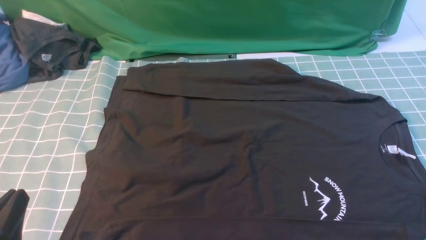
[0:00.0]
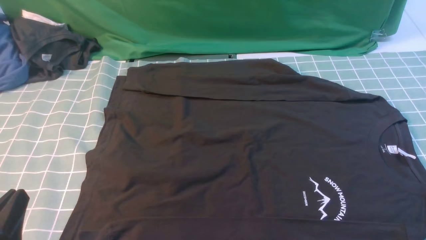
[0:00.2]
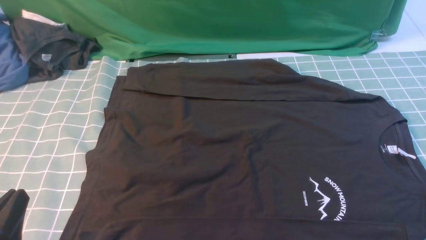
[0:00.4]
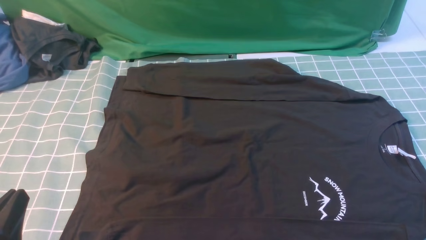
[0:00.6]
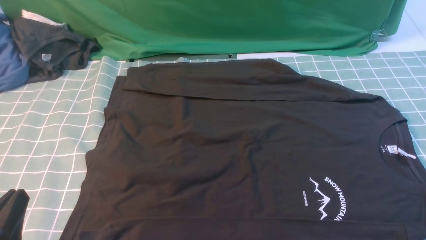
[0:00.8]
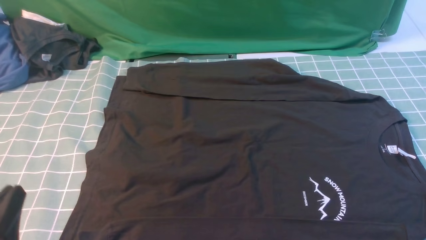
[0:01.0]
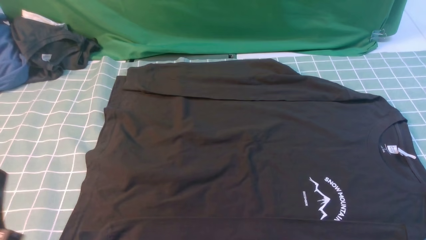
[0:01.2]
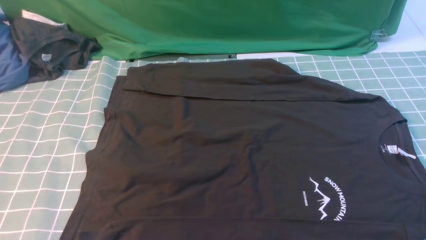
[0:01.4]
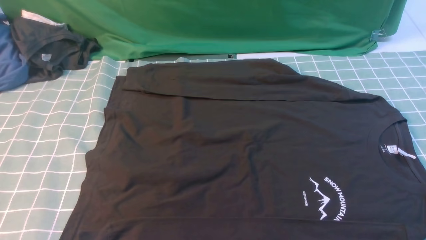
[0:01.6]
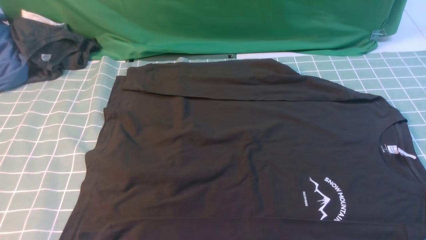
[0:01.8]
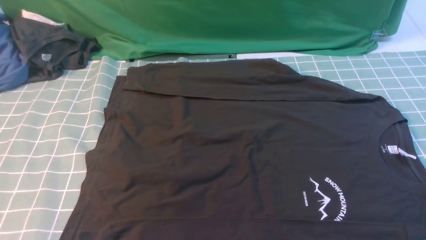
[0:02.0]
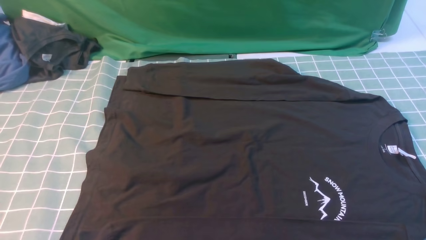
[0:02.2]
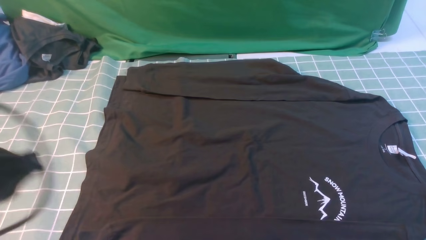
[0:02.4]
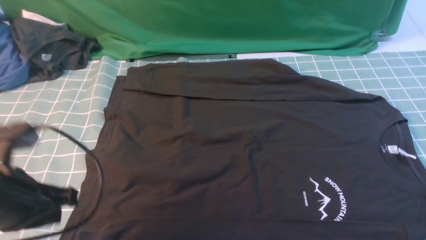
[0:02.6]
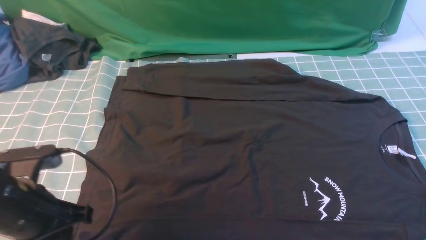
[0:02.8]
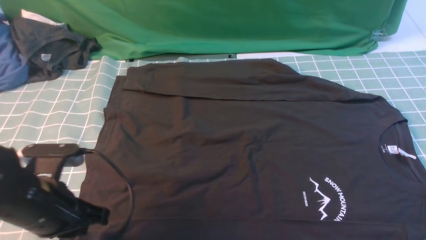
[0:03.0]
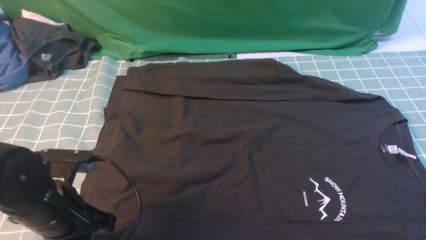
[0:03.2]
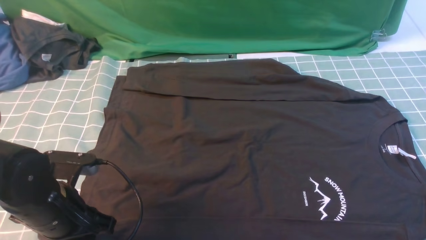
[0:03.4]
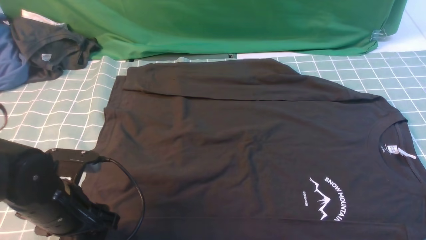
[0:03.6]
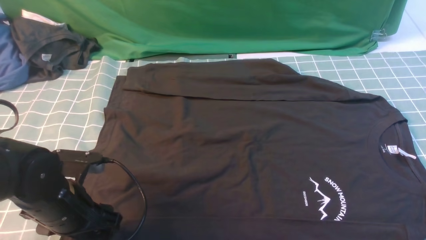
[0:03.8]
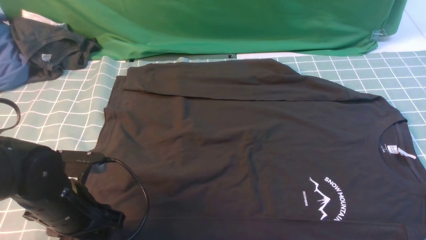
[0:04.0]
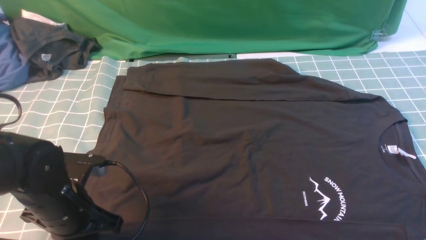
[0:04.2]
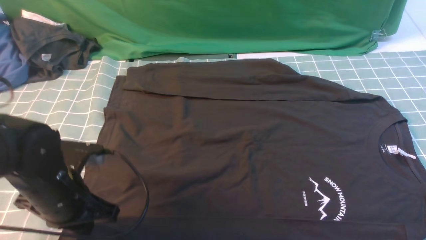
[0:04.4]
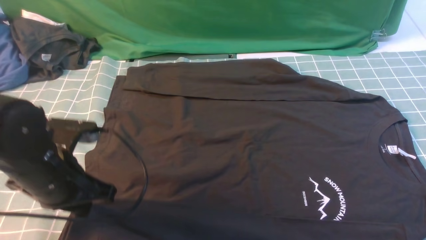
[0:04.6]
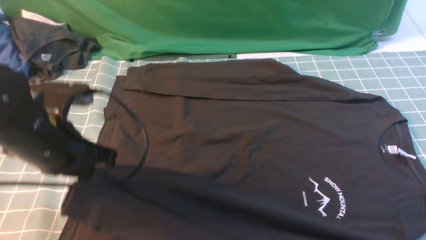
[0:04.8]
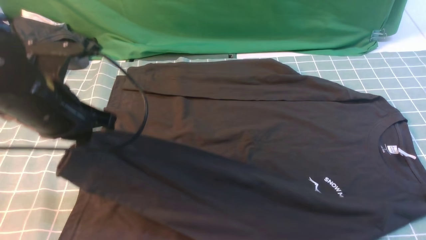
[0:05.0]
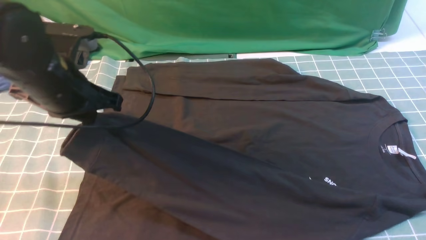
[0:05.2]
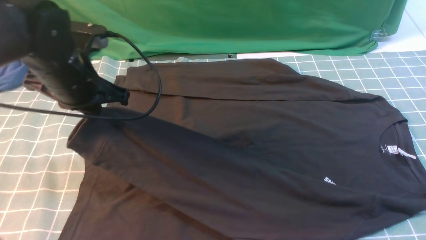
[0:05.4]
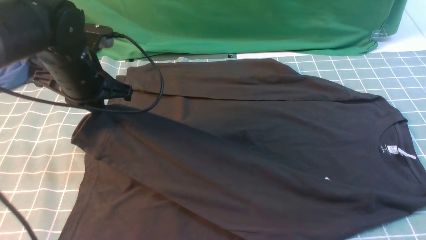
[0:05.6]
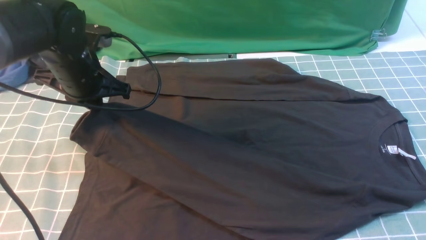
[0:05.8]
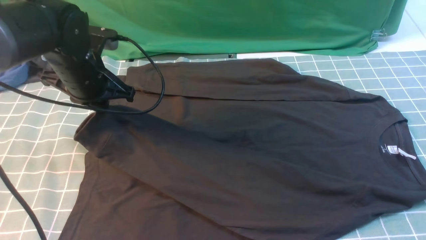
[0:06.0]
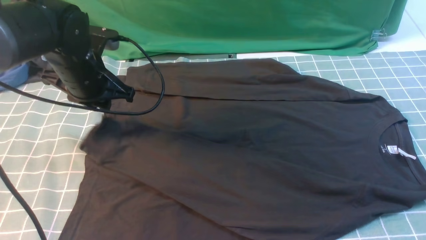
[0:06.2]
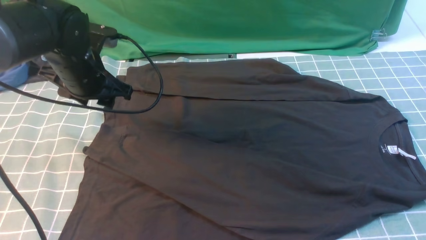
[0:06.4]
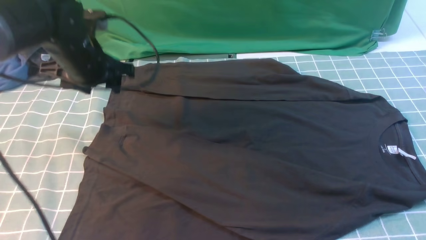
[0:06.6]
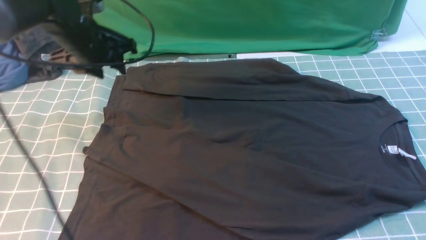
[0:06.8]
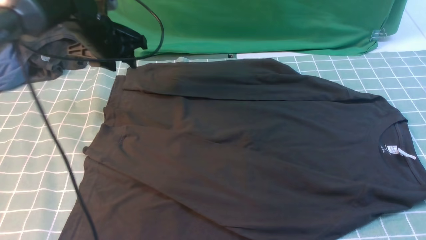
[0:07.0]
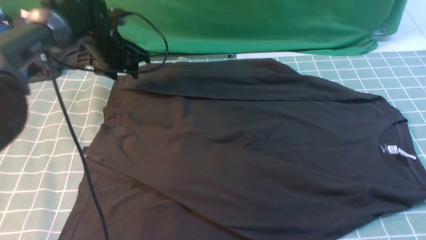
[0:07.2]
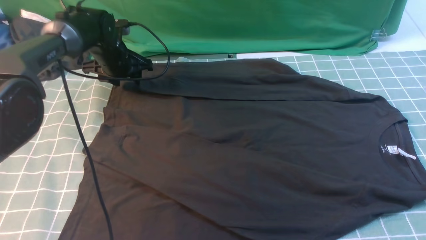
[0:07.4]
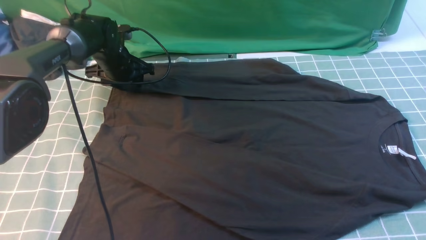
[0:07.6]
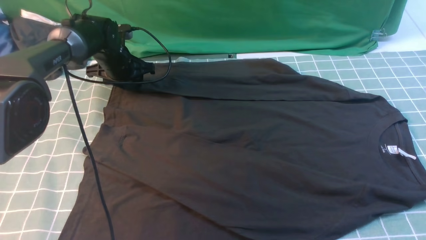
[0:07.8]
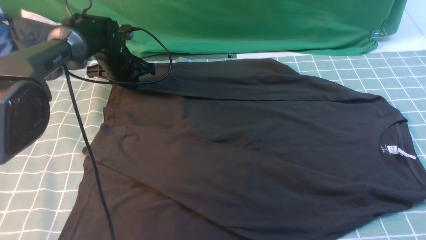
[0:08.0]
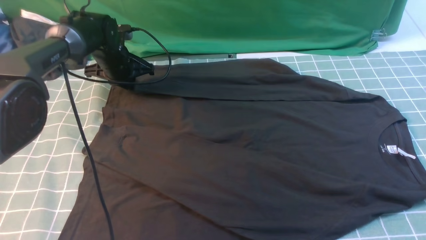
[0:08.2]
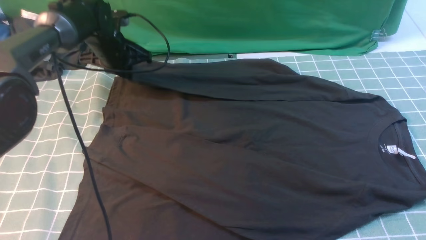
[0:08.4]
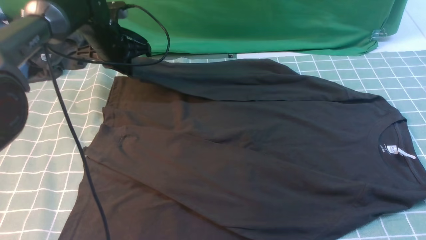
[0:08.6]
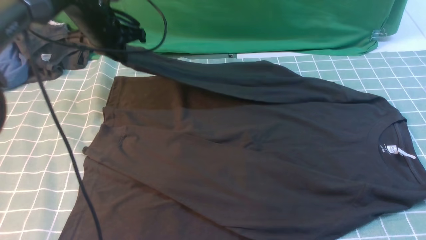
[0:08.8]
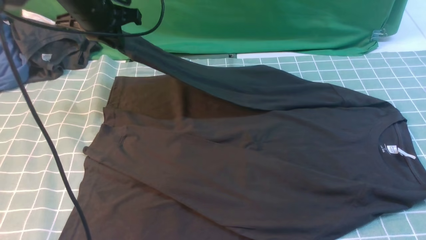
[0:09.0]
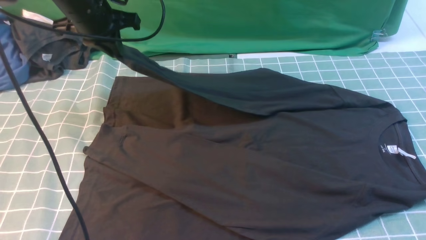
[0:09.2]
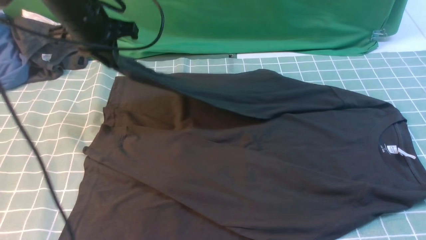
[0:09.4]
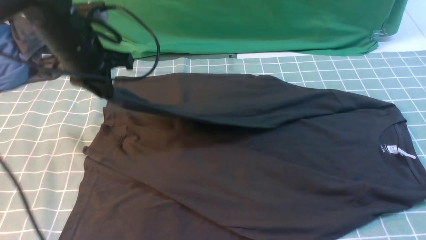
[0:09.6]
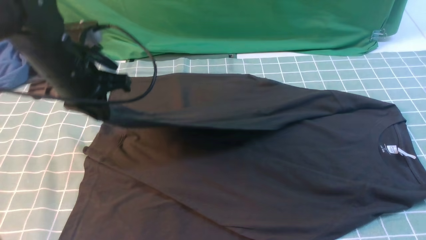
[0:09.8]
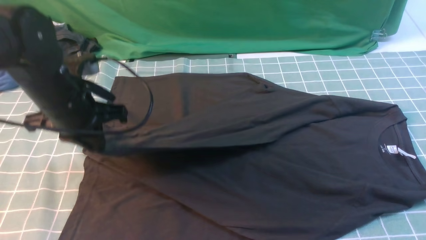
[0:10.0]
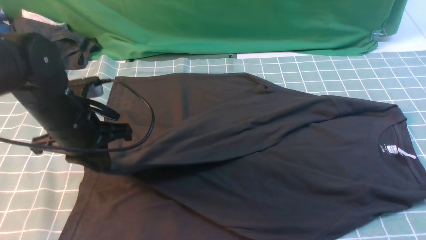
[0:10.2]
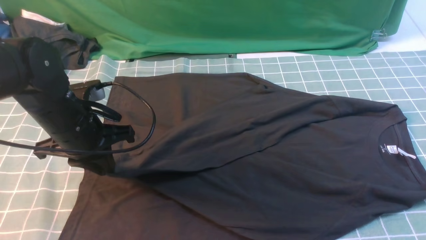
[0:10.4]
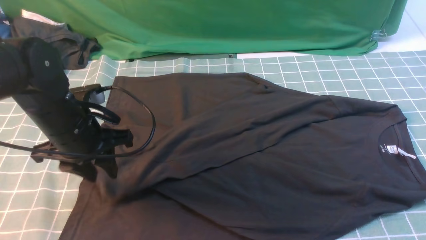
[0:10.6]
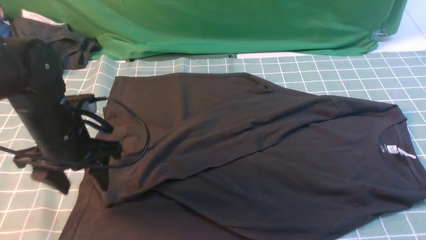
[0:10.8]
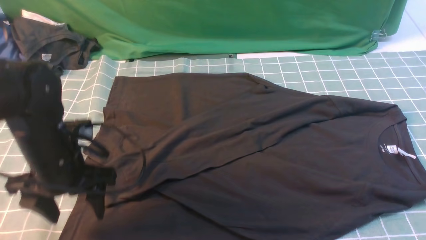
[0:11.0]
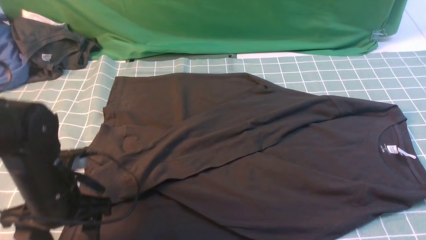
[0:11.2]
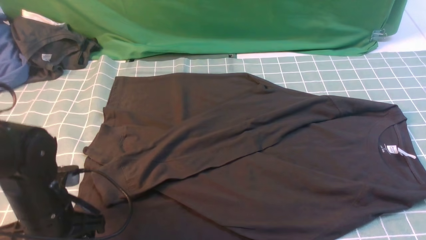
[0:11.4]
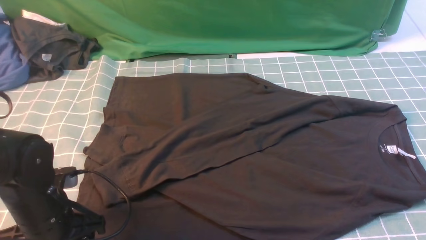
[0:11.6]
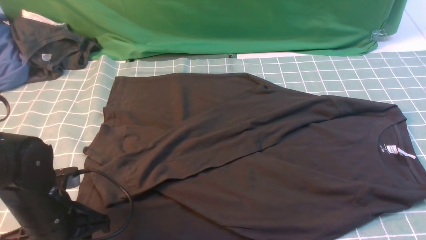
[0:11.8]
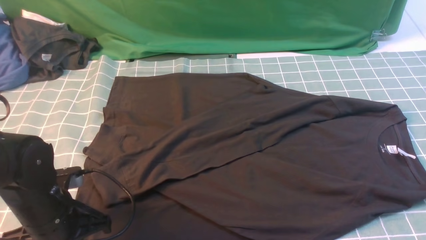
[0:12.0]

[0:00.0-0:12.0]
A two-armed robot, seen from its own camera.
Step, 0:00.0 to 0:04.4: use the left arm to clamp the cuff closest to it.
Step, 0:04.6 to 0:06.4: use the left arm to drag and place the cuff at the centered position on the left edge of the fabric.
Step, 0:06.6 to 0:08.2: use the left arm to clamp the cuff farthest from it.
Step, 0:08.4 to 0:10.8: use the left arm to drag and drop the cuff onto the cuff closest to the left arm.
0:00.0 to 0:01.6: The left gripper is displaced upward by some 5 cm.
0:01.6 to 0:03.0: The left gripper travels forward and downward by roughly 15 cm.
0:03.0 to 0:04.4: The left gripper opens, then closes again.
0:04.4 to 0:06.0: The left gripper travels forward by approximately 15 cm.
0:06.0 to 0:07.6: The left gripper is displaced forward and downward by about 20 cm, and opens up.
0:07.6 to 0:09.0: The left gripper heads upward and backward, covering roughly 15 cm, and closes its fingers.
0:09.0 to 0:10.4: The left gripper travels backward and downward by roughly 20 cm.
0:10.4 to 0:12.0: The left gripper travels backward and downward by roughly 10 cm, and opens, then closes again.

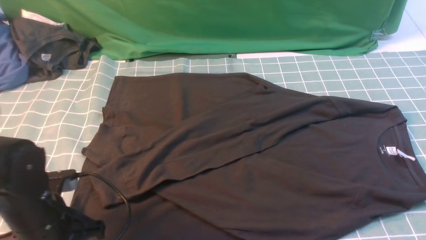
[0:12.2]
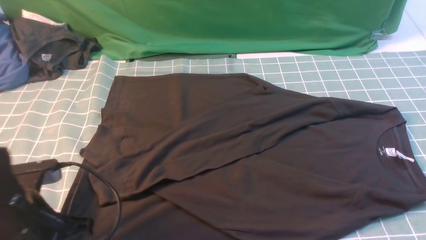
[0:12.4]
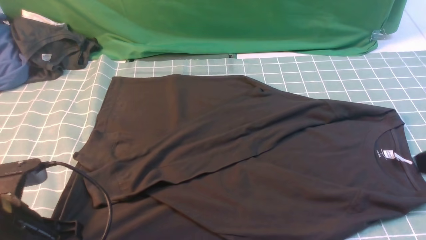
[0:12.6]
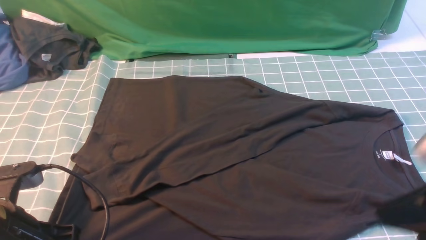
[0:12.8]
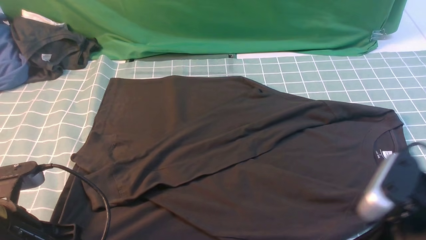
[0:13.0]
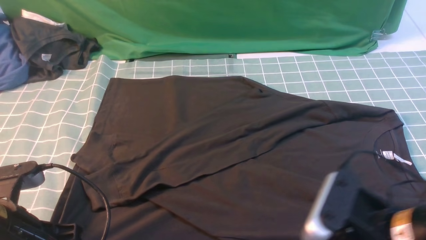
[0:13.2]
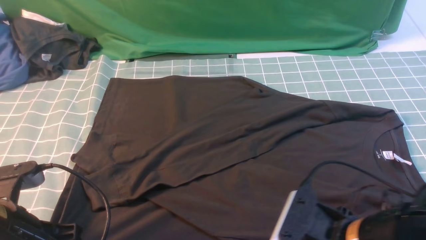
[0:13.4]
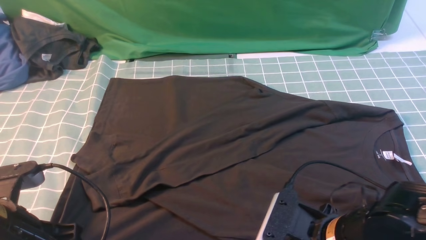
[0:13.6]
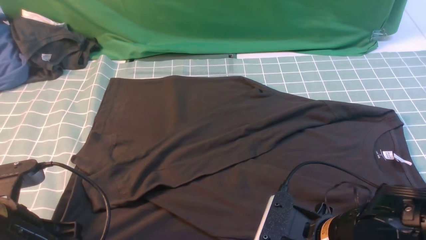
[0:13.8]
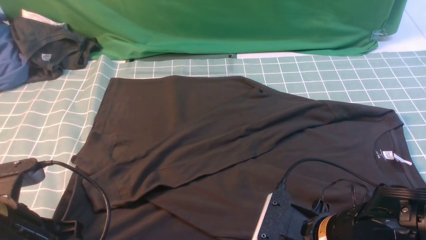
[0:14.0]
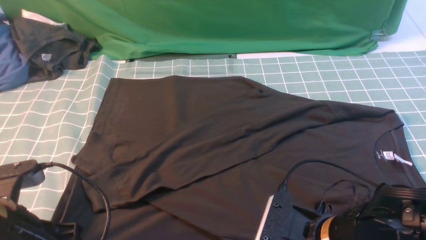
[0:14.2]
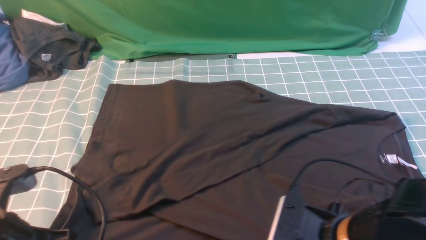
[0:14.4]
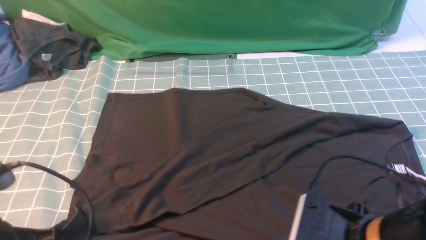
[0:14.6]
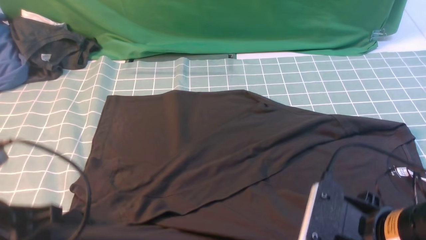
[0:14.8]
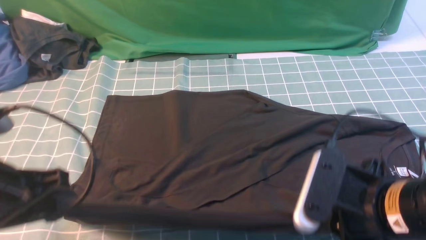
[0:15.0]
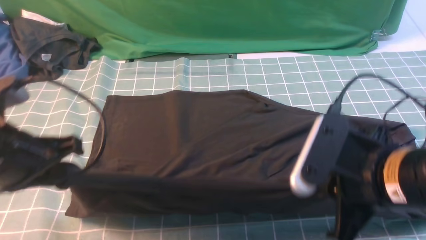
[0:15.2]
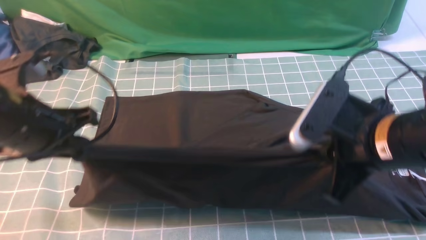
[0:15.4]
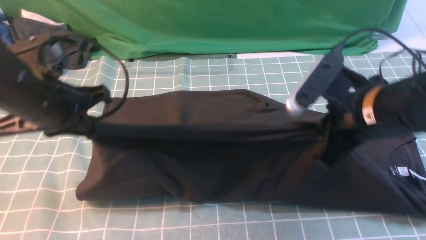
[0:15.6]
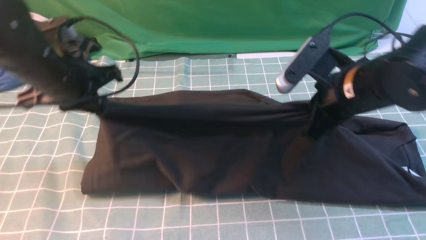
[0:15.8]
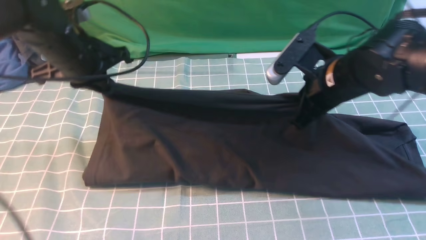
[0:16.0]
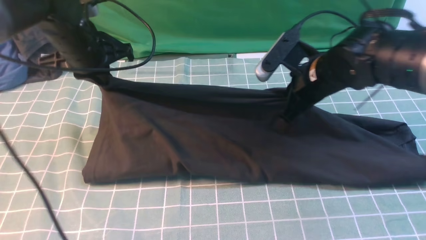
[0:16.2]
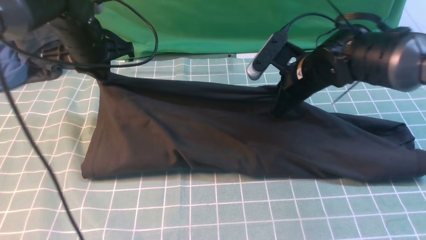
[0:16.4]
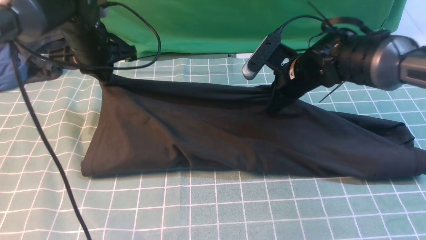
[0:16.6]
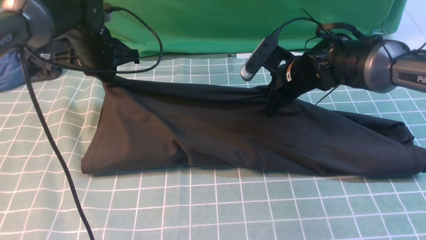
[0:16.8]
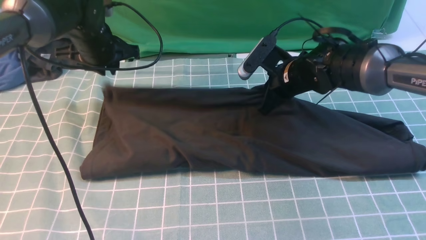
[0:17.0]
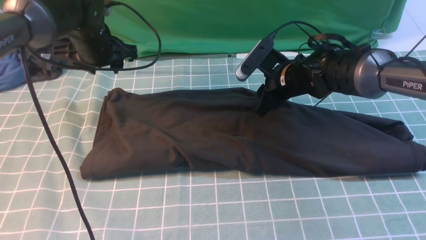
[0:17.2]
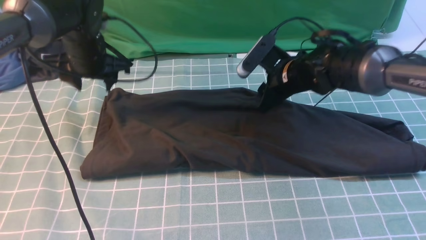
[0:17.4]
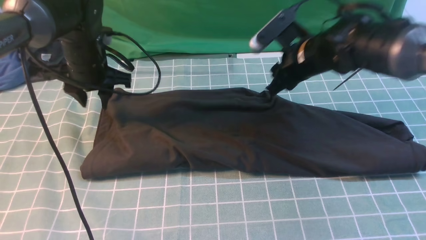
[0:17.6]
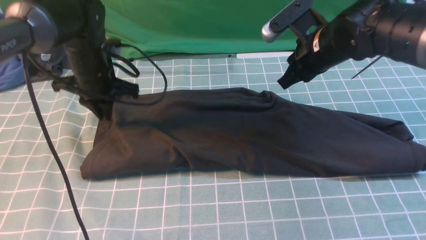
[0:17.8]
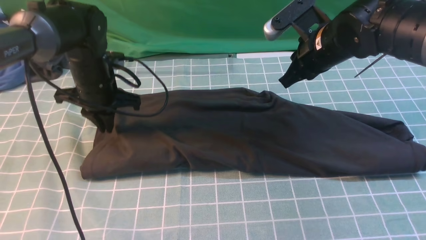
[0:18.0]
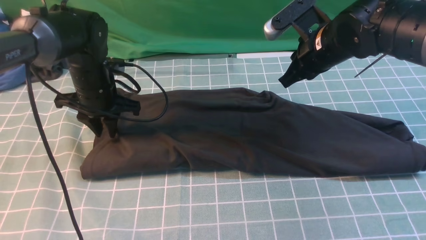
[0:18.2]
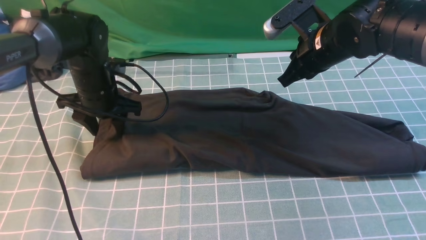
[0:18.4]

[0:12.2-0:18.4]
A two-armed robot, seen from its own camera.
Step, 0:12.2 to 0:14.8: use both arms simultaneously to clamp the lower edge of the clothing fabric.
0:12.2 to 0:13.8: The right gripper goes some 25 cm downward and to the left, and opens its fingers. Meanwhile the left gripper is displaced upward by some 5 cm.
0:13.8 to 0:15.4: The right gripper travels upward and forward by roughly 15 cm, and closes. The left gripper shifts approximately 10 cm forward and upward.
0:15.4 to 0:16.8: The left gripper shifts about 20 cm forward; the right gripper is displaced forward and downward by about 20 cm.
0:16.8 to 0:18.4: The left gripper heads downward, covering approximately 5 cm, and opens, while the right gripper heads upward, covering about 10 cm, and opens and closes again.
